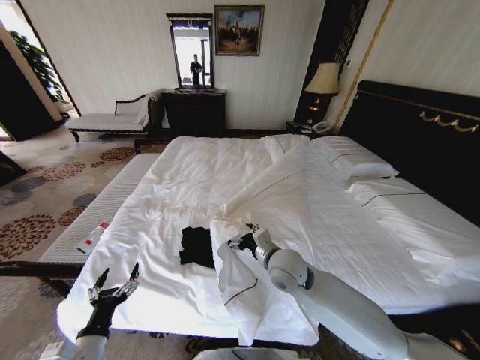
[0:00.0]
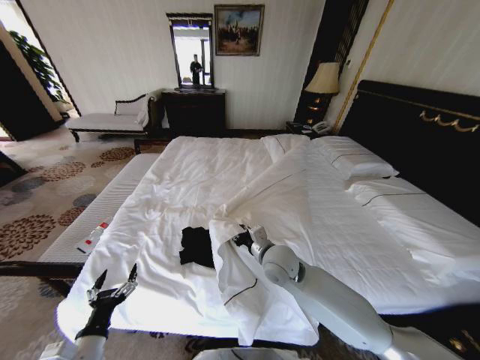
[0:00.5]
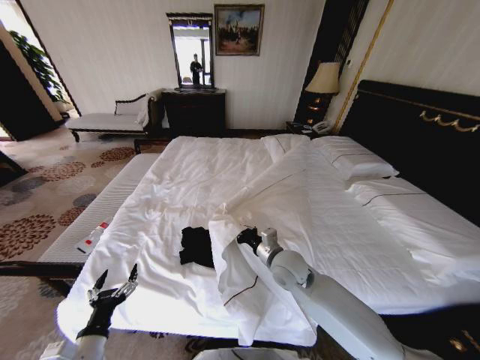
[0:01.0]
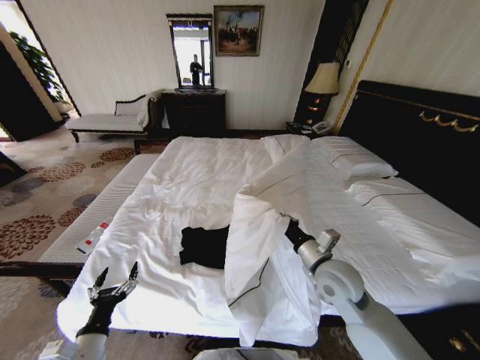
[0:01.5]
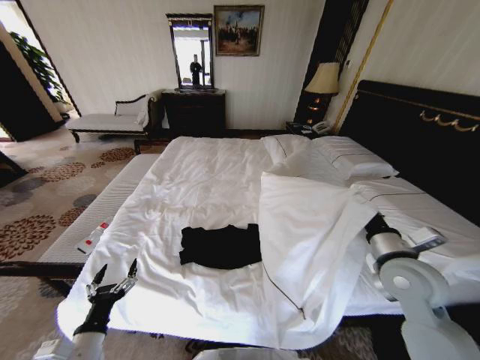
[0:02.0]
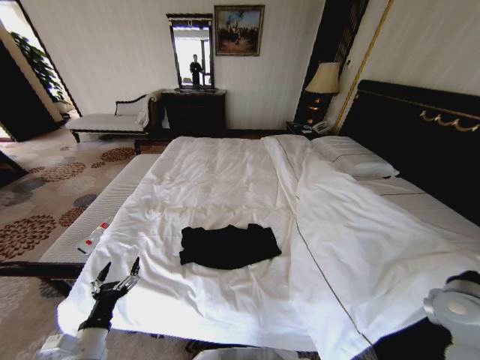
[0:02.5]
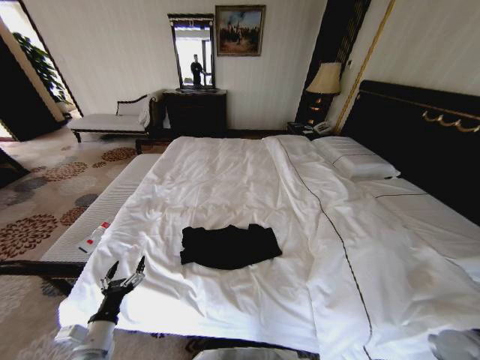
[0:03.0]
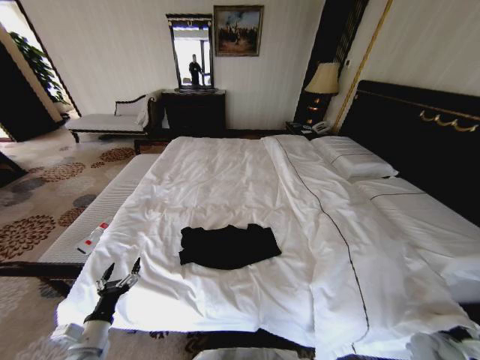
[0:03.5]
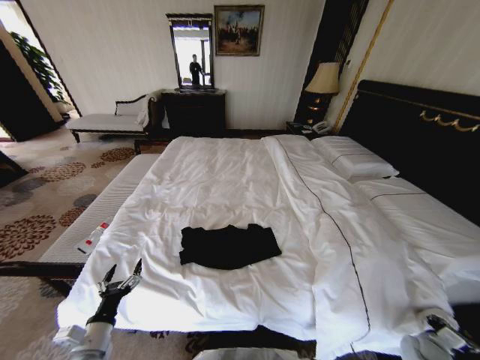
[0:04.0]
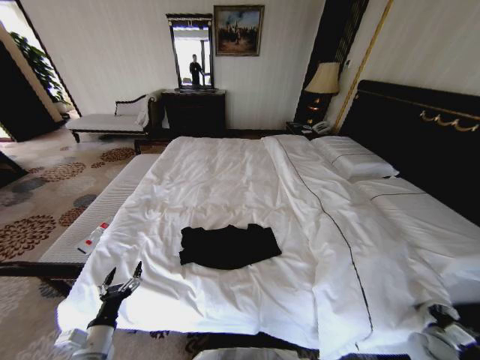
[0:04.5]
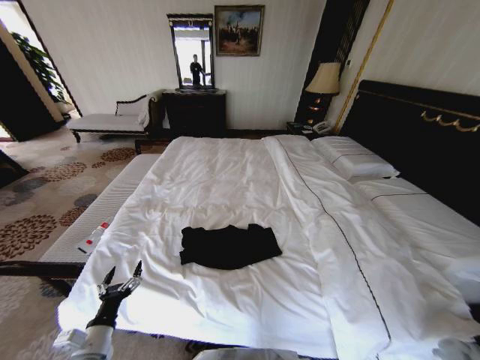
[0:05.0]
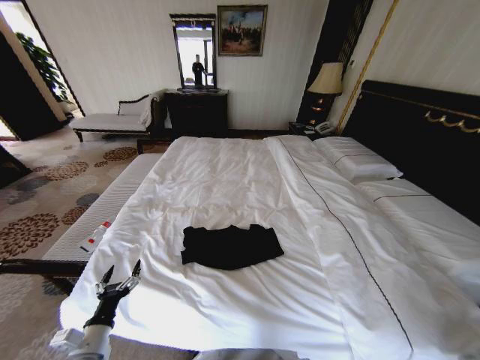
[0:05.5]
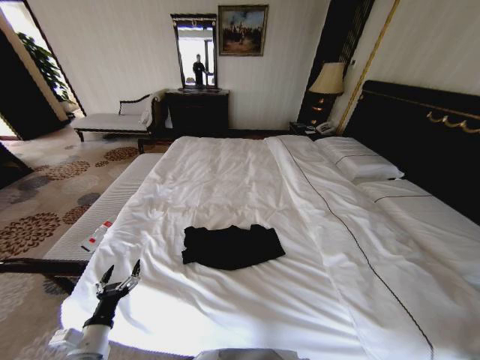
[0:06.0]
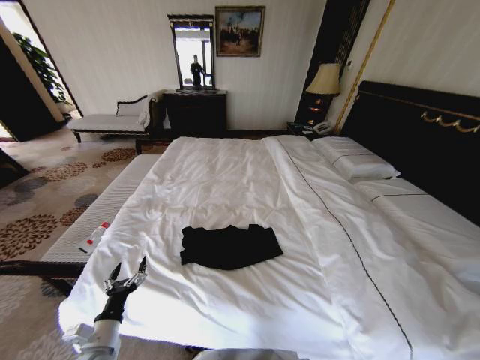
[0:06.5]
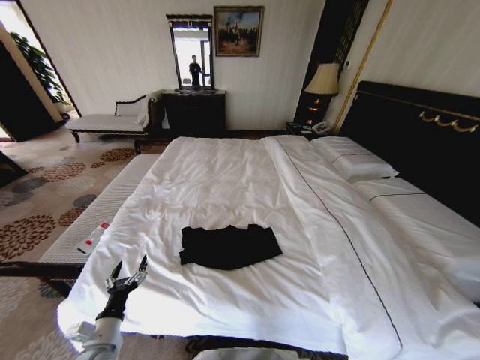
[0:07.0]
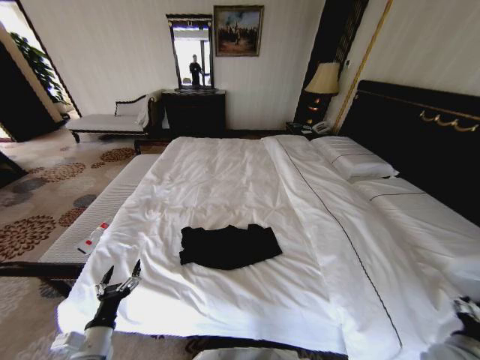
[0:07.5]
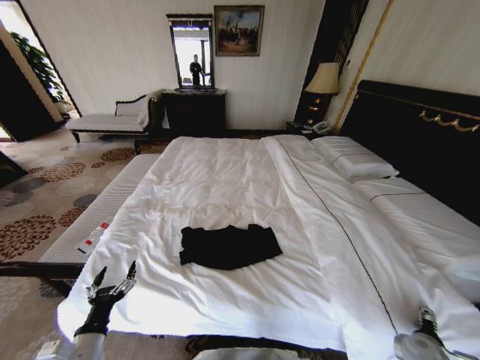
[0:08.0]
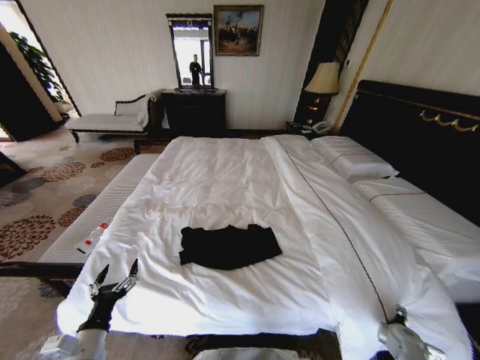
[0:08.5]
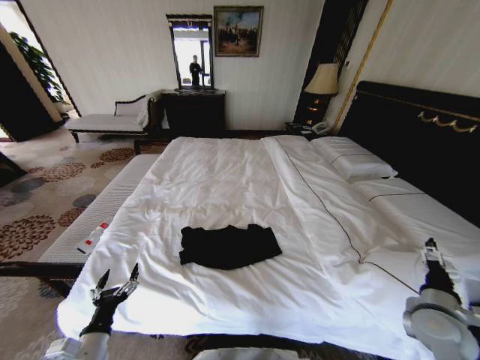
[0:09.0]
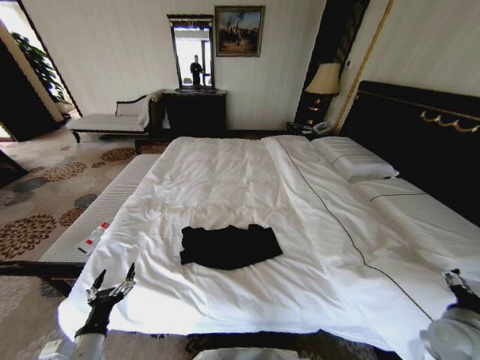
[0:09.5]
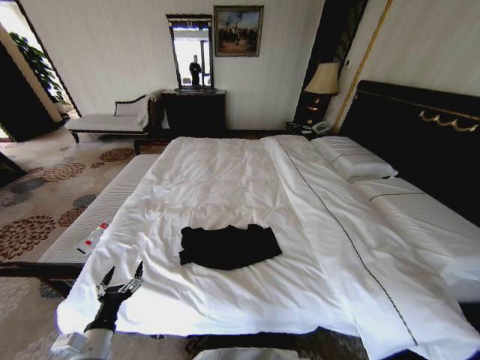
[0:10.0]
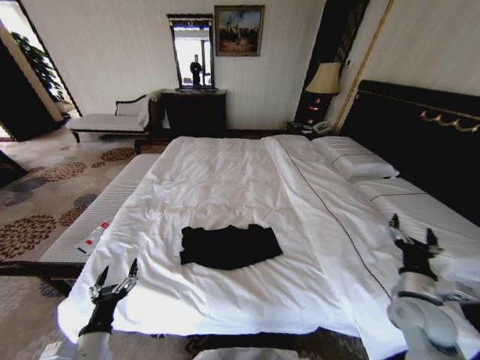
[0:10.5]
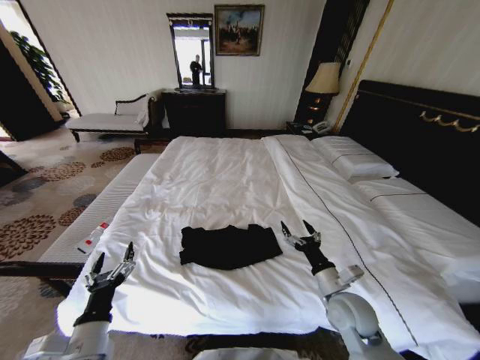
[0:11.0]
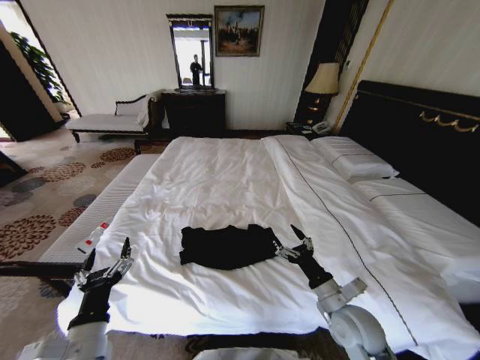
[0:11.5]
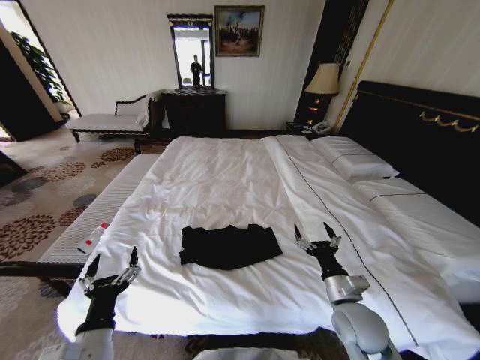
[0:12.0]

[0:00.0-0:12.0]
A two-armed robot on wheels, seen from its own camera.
Task of the whole recording: Fold the clothes on the bed.
0:00.0 to 0:02.0: The right gripper goes some 25 cm to the right, and closes its fingers.
0:02.0 to 0:04.0: The right gripper shifts roughly 40 cm downward and to the right, and opens. Meanwhile the left gripper moves roughly 5 cm.
0:04.0 to 0:06.0: The right gripper travels to the right, upward and backward by roughly 15 cm, and closes and opens again.
0:06.0 to 0:08.0: The right gripper heads to the left, covering some 15 cm, and opens up.
0:08.0 to 0:10.0: The right gripper shifts about 20 cm upward.
0:10.0 to 0:12.0: The left gripper shifts about 10 cm upward and to the right. The right gripper moves to the left, some 25 cm.

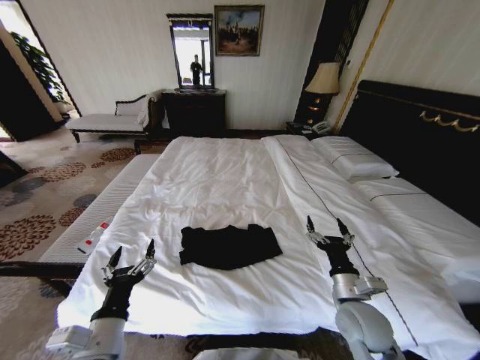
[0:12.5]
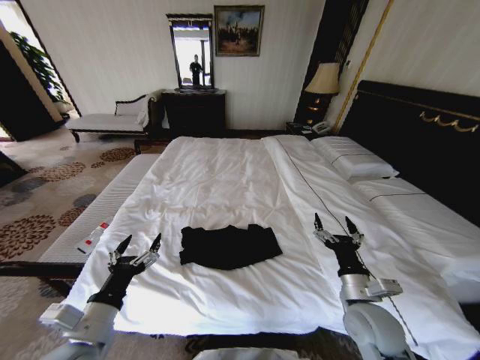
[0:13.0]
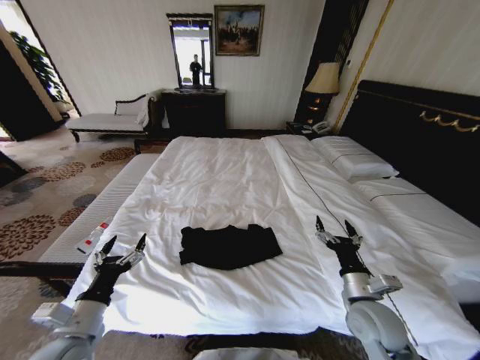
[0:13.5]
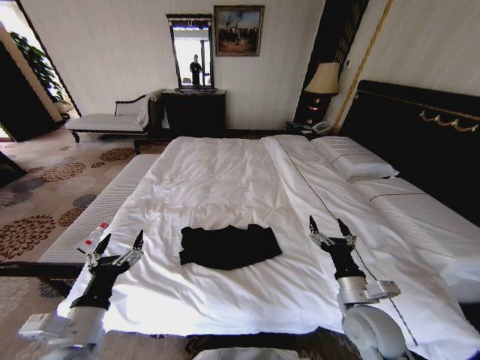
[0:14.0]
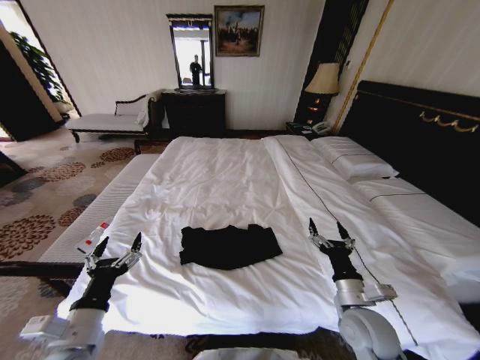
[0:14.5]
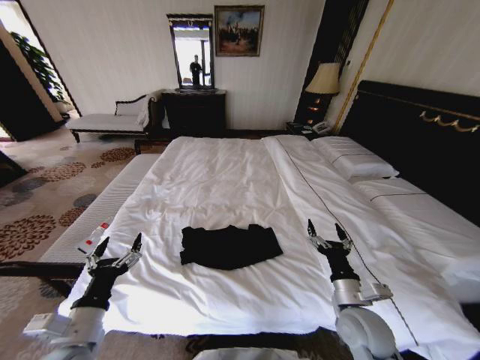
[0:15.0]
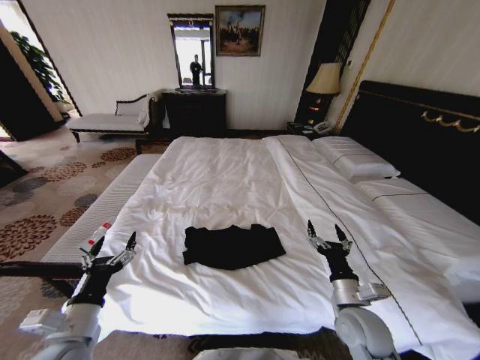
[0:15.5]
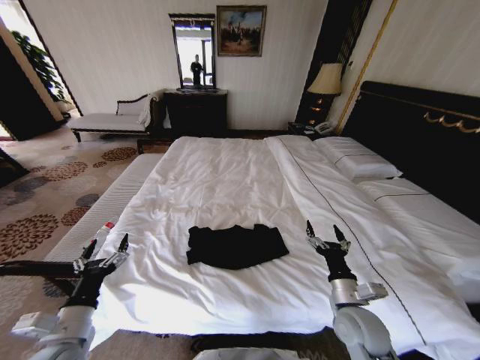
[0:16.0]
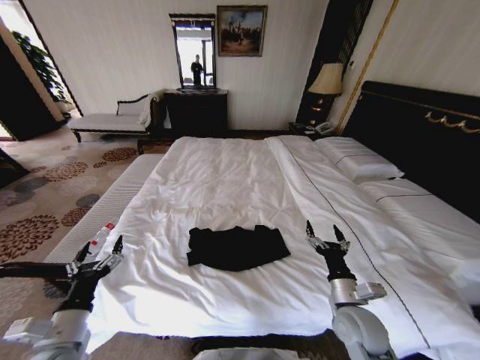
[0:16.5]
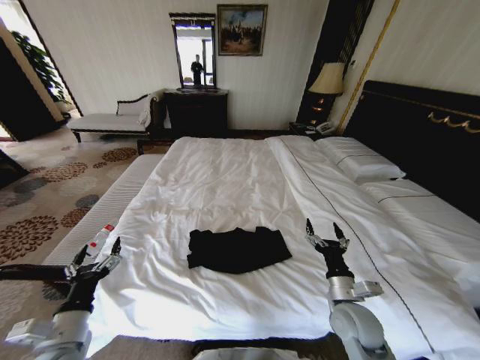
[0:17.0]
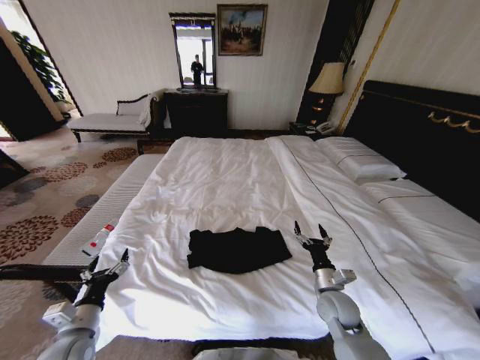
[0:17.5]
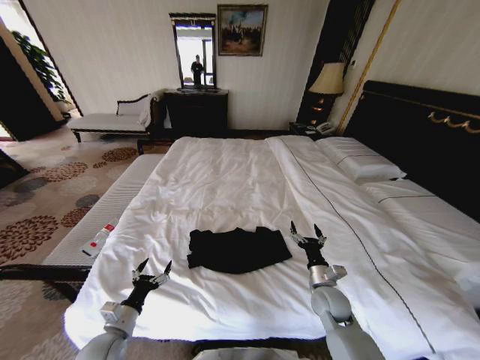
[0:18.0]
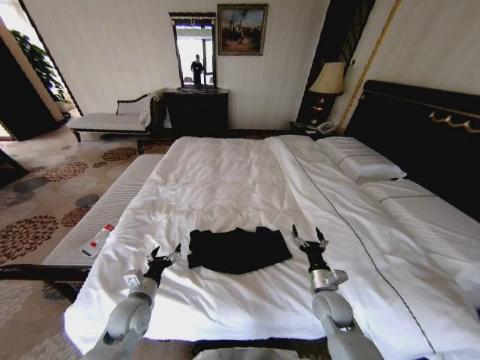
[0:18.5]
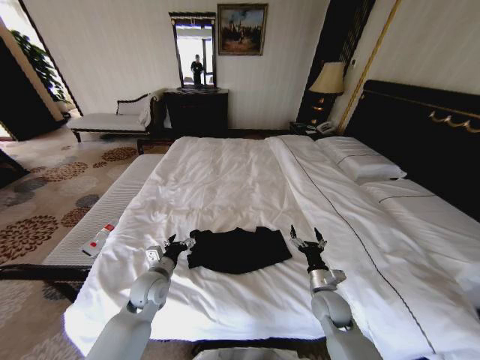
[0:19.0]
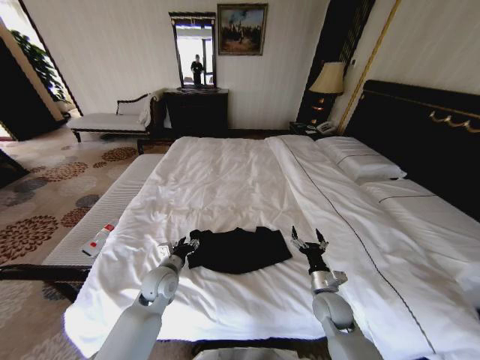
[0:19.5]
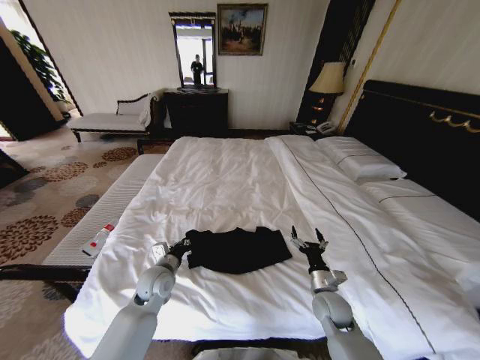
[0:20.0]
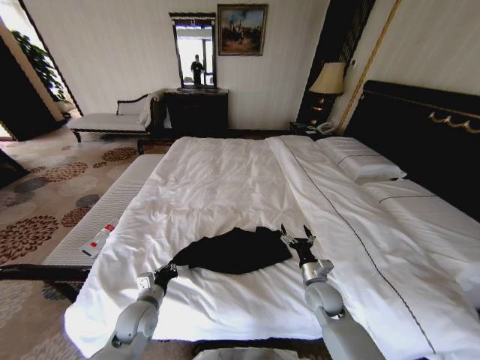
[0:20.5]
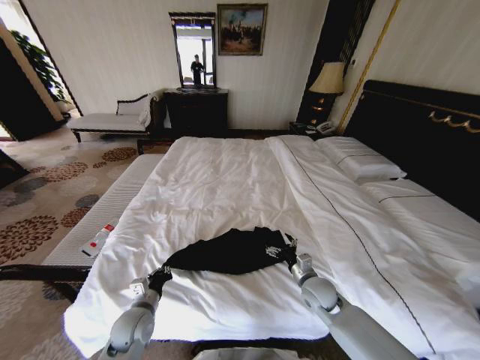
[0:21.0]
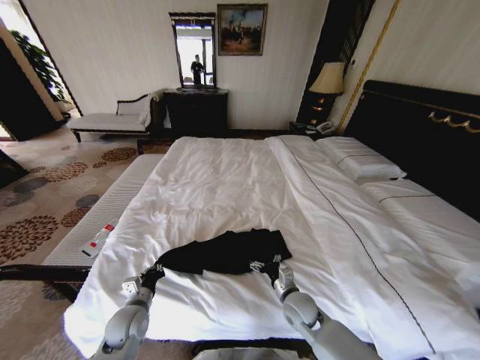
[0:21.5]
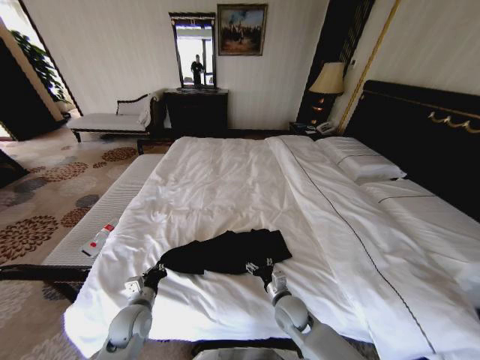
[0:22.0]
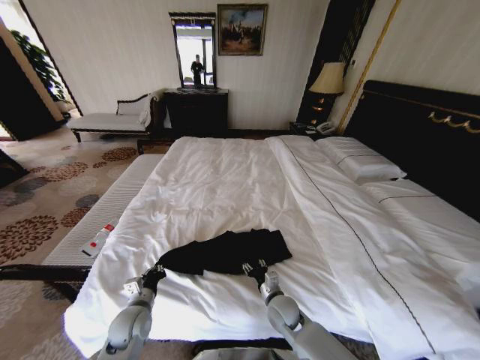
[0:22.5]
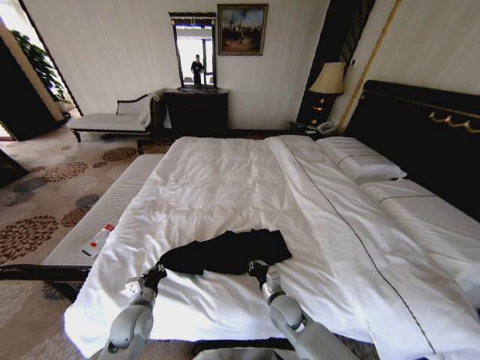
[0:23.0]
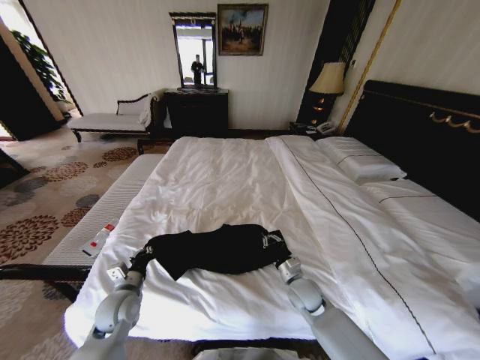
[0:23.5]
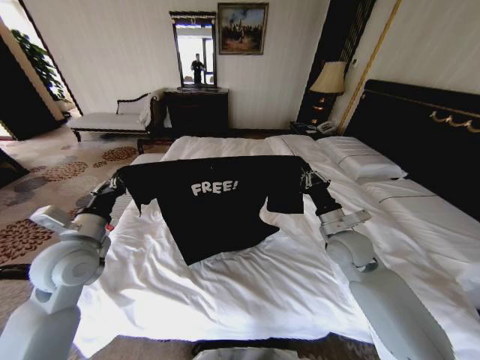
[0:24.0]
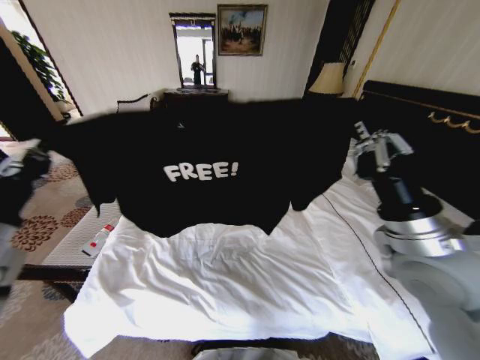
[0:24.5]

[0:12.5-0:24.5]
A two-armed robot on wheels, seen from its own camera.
Task of the whole recording: Fold the clothes on the bed.
0:14.5 to 0:16.5: The left gripper shifts by roughly 5 cm.
0:16.5 to 0:18.5: The left gripper shifts about 15 cm forward, downward and to the right. Meanwhile the right gripper shifts about 10 cm downward and forward.
0:18.5 to 0:20.5: The left gripper goes forward and returns, roughly 10 cm each way, and closes up.
0:20.5 to 0:22.5: The right gripper goes about 10 cm to the left, and closes its fingers.
0:22.5 to 0:24.5: The right gripper heads upward and to the right, covering approximately 40 cm, and closes its fingers. The left gripper travels upward by about 35 cm.

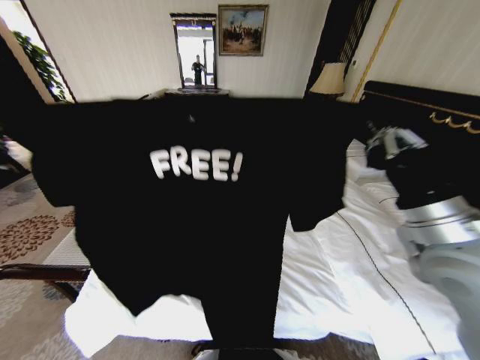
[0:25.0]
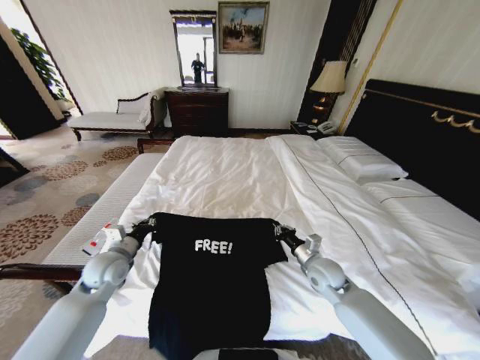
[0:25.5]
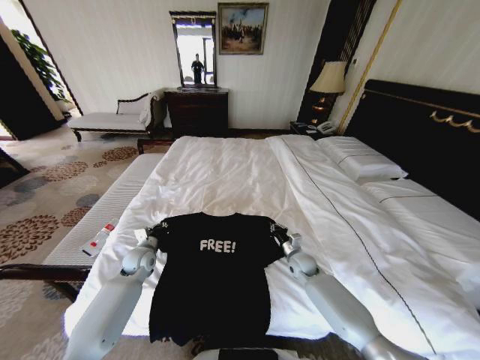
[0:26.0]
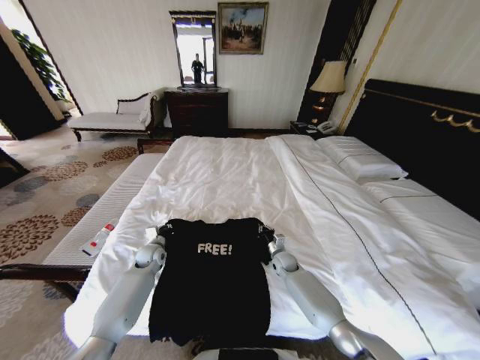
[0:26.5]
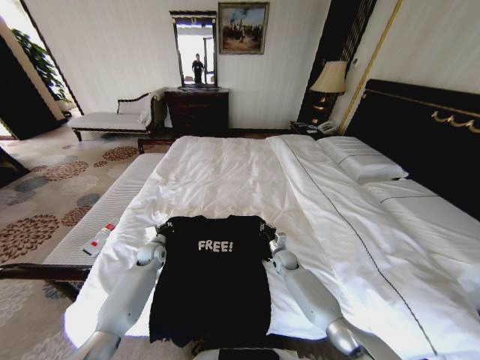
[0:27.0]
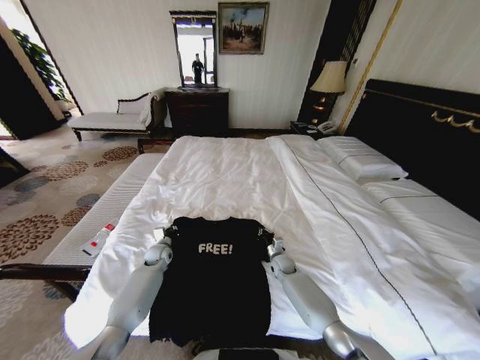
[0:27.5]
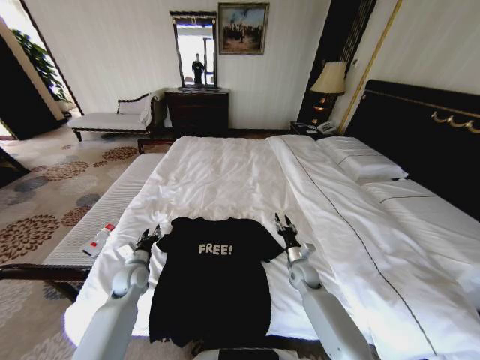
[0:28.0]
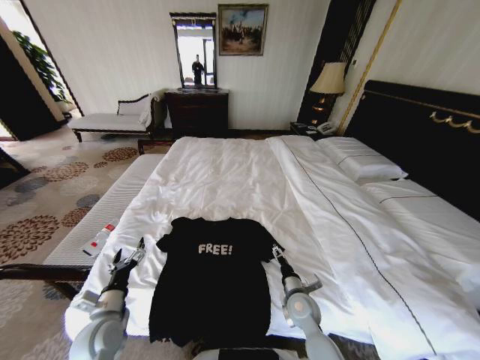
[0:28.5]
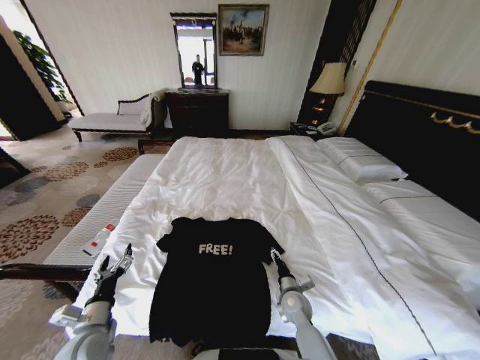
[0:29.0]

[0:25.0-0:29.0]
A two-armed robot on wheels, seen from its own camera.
Task of the whole recording: Fold the clothes on the bed.
0:25.0 to 0:27.0: The grippers both shift downward and forward by approximately 50 cm.
0:27.0 to 0:29.0: The left gripper goes approximately 30 cm backward, and opens. Meanwhile the right gripper travels backward by about 15 cm, and opens up.
